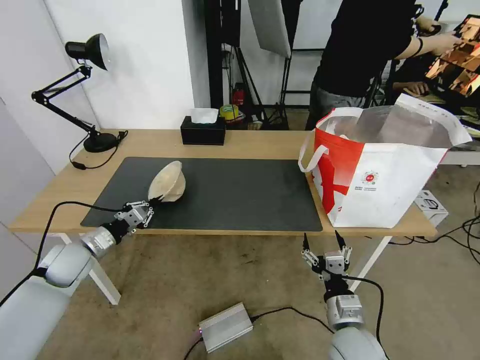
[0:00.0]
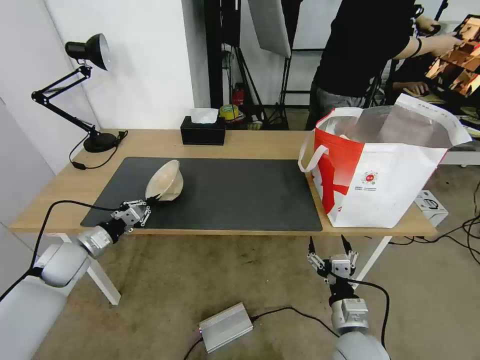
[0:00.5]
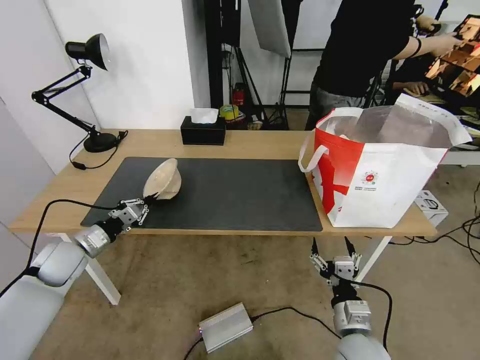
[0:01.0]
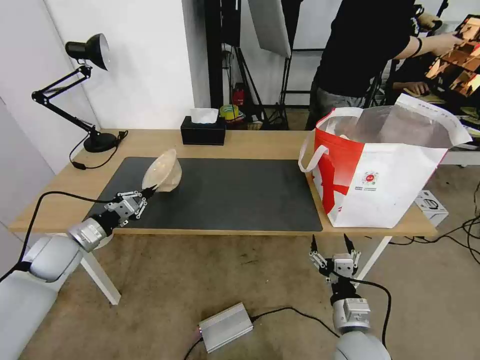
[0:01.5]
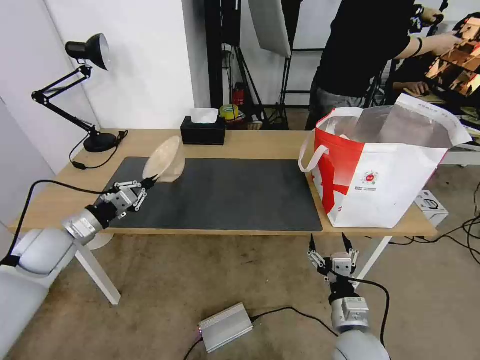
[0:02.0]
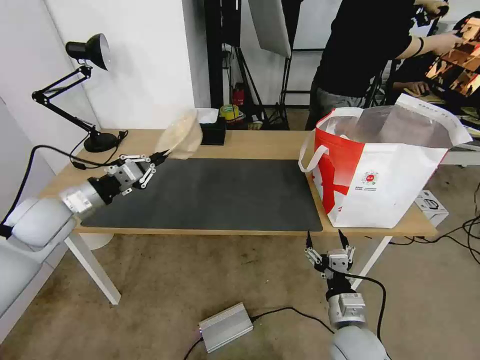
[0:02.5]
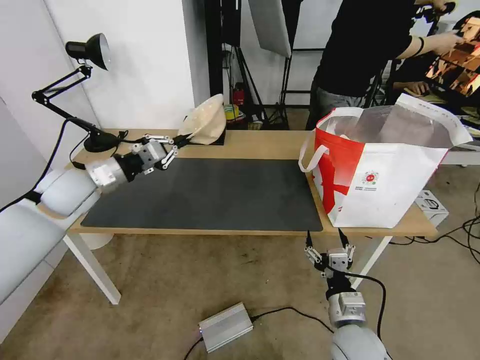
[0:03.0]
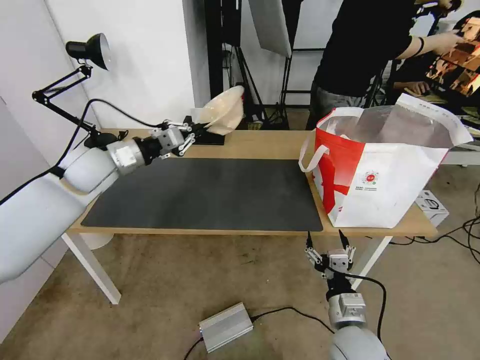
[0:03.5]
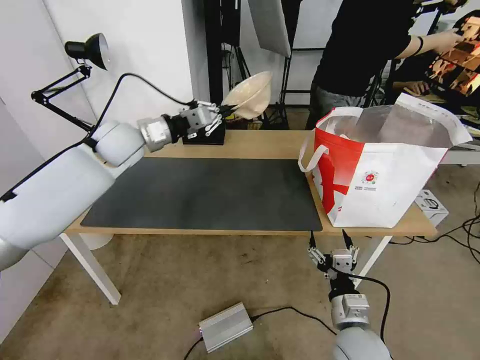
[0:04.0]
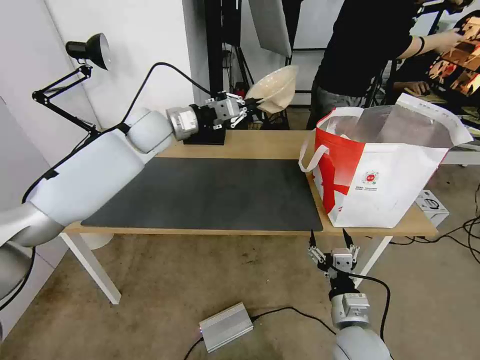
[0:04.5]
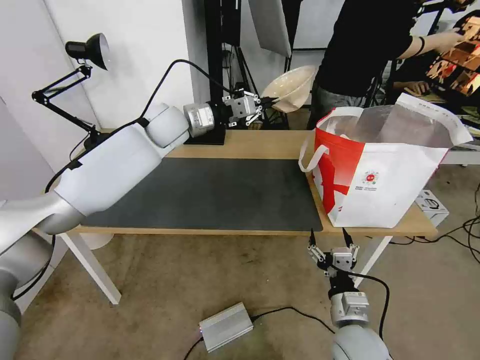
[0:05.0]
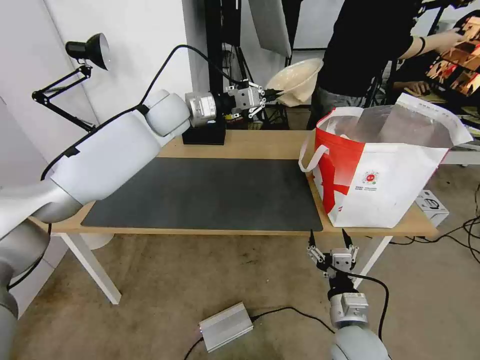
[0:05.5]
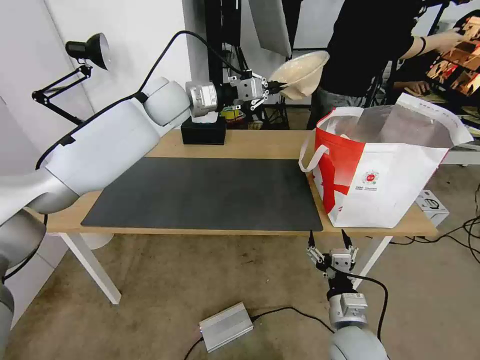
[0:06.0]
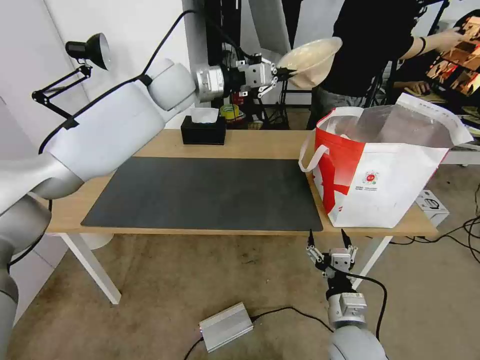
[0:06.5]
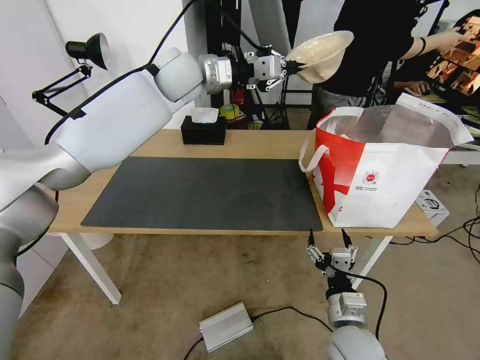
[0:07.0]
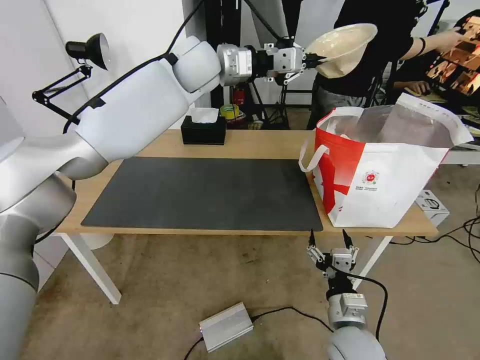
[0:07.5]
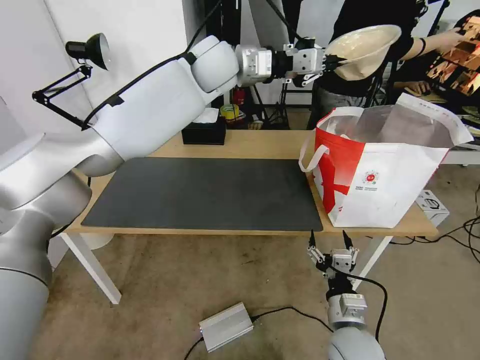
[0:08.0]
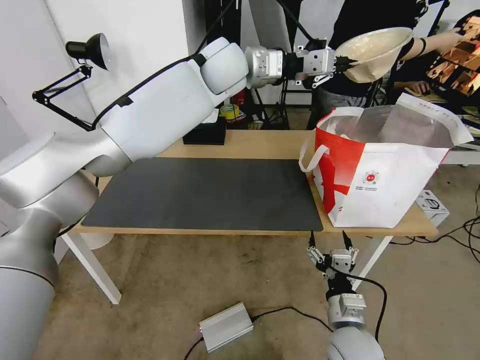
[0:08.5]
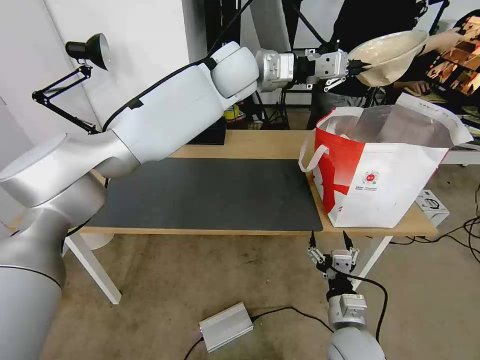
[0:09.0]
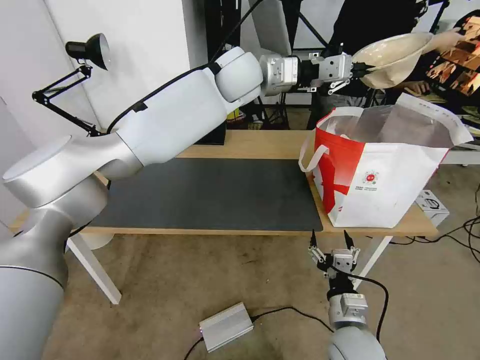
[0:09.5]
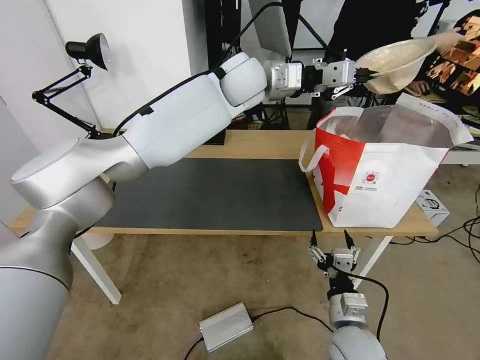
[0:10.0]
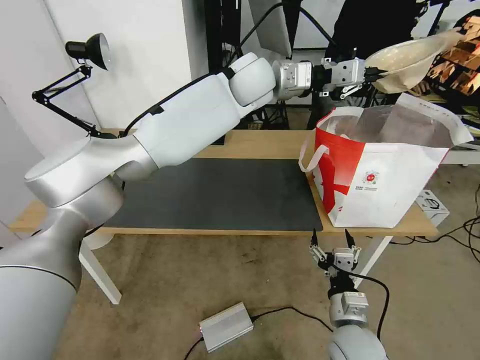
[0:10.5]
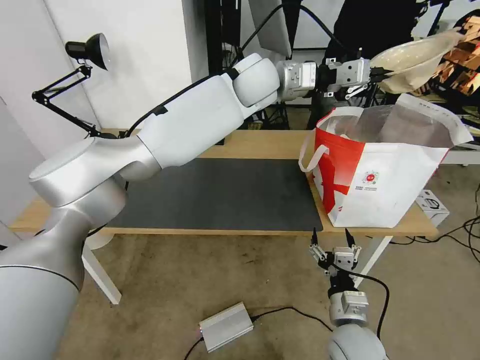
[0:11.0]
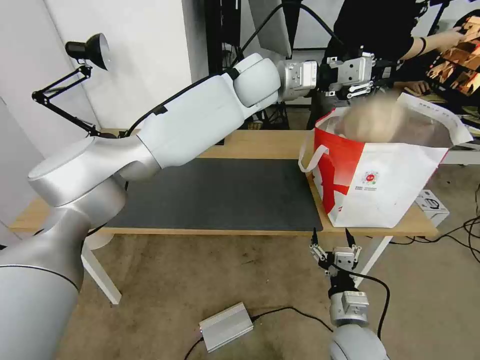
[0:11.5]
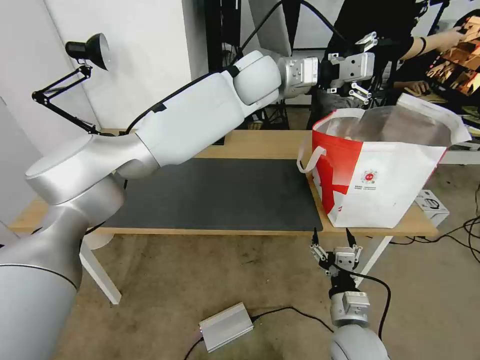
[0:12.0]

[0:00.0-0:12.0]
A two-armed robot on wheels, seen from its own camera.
Task of the whole recording: Pick up the trash from the table and place it into the takeout bag.
0:00.0 to 0:02.0: The left gripper heads upward, covering approximately 10 cm.
0:02.0 to 0:04.0: The left gripper goes roughly 25 cm forward, upward and to the right.
0:04.0 to 0:06.0: The left gripper heads to the right, upward and forward, covering about 15 cm.
0:06.0 to 0:08.0: The left gripper shifts roughly 15 cm to the right and upward.
0:08.0 to 0:10.0: The left gripper goes roughly 5 cm to the right.
0:10.0 to 0:12.0: The left gripper opens its fingers.

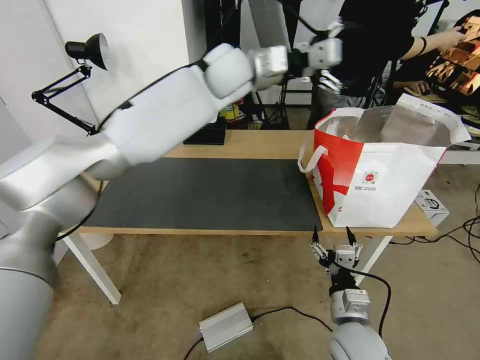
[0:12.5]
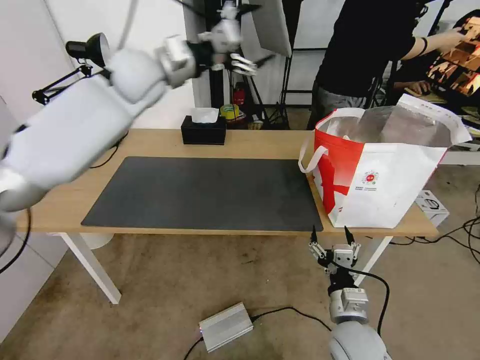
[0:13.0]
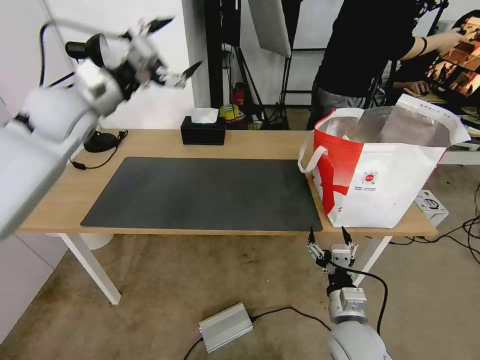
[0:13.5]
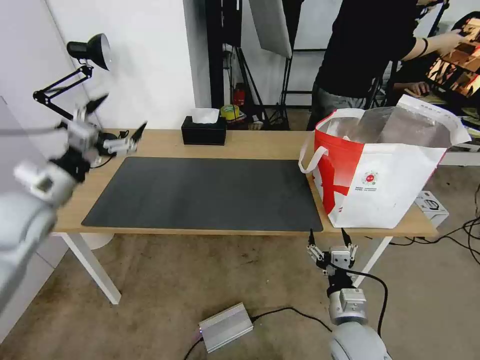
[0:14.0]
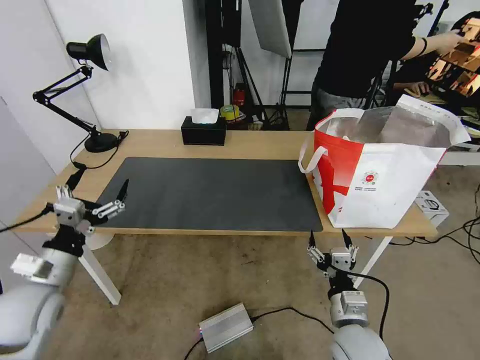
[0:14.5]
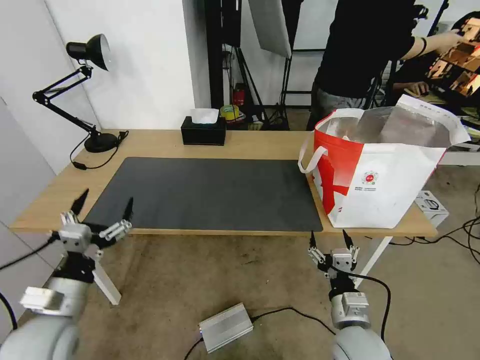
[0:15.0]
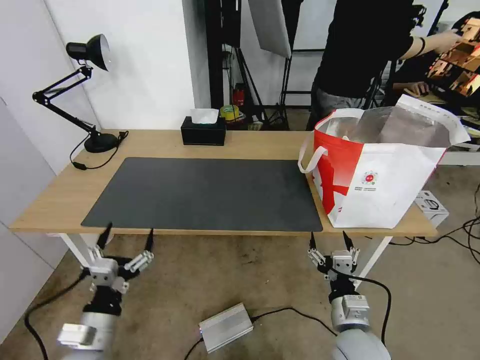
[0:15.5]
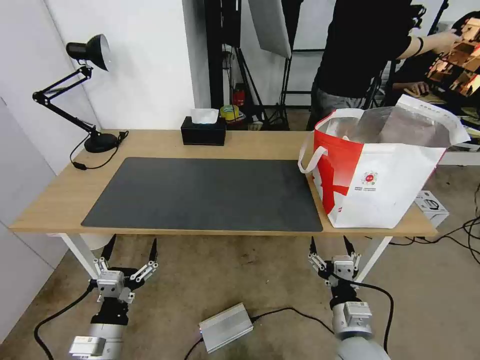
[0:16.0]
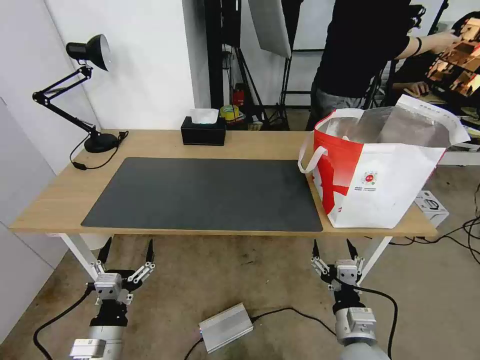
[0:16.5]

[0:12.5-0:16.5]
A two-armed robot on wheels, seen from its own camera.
Task of the whole recording: Pick up the trash from the table and place it into the takeout bag.
0:12.5 to 0:14.5: The left gripper shifts some 60 cm backward, to the left and downward.
0:14.5 to 0:16.5: The left gripper travels downward, backward and to the right by approximately 20 cm.
